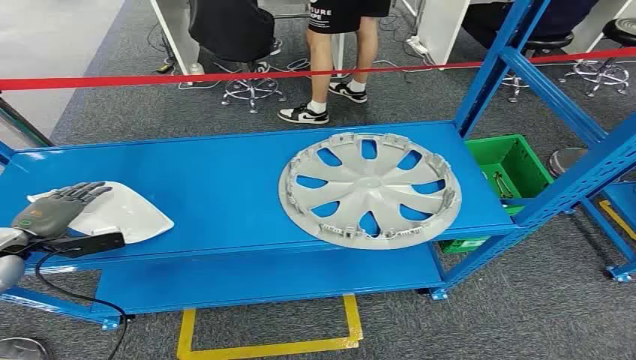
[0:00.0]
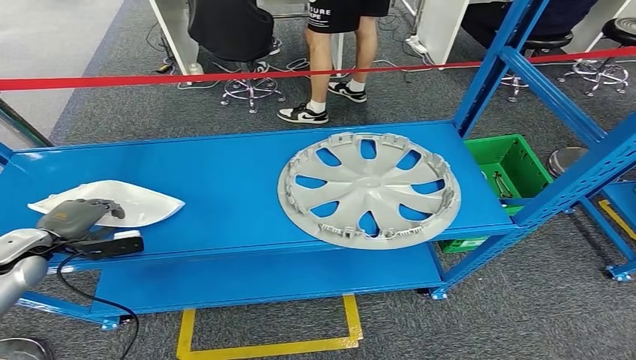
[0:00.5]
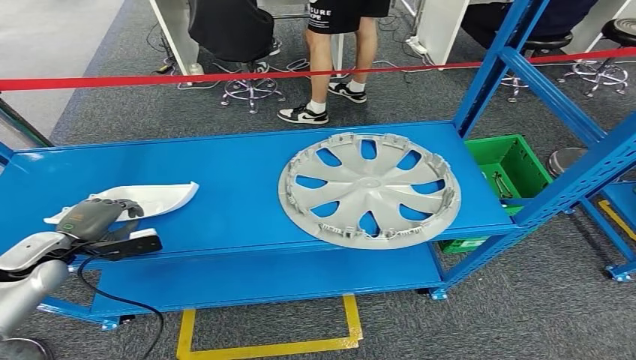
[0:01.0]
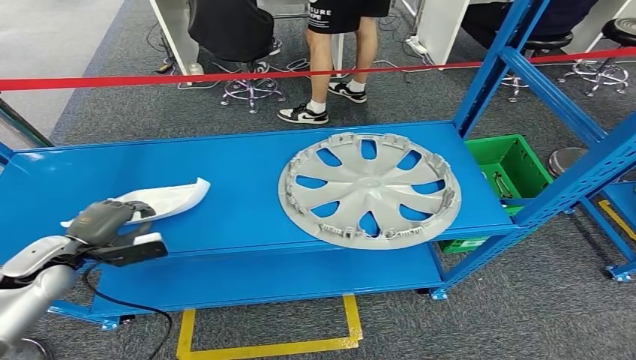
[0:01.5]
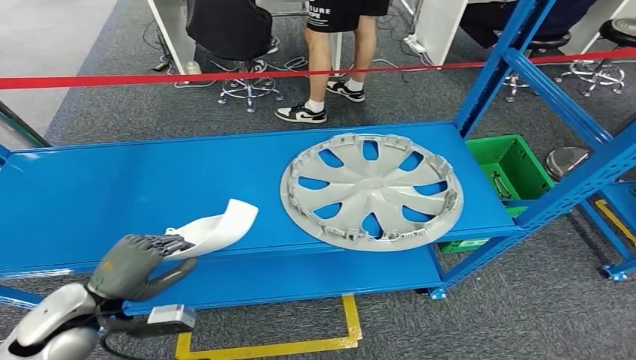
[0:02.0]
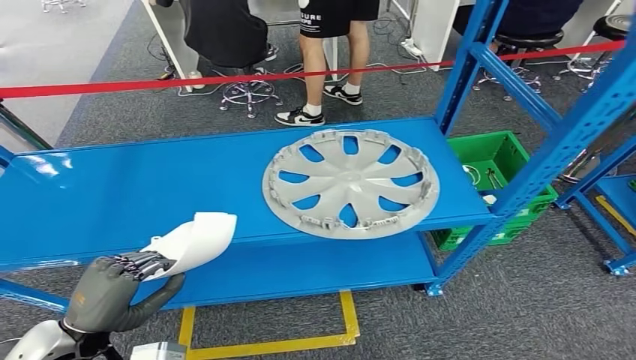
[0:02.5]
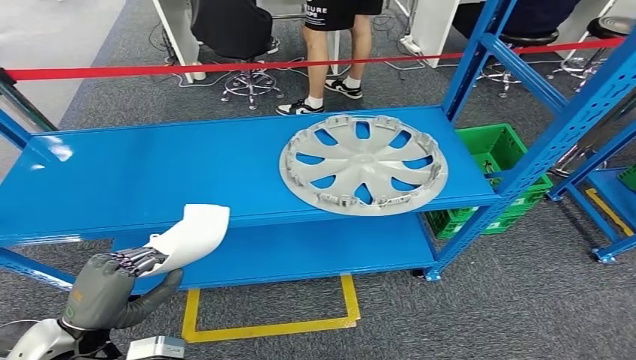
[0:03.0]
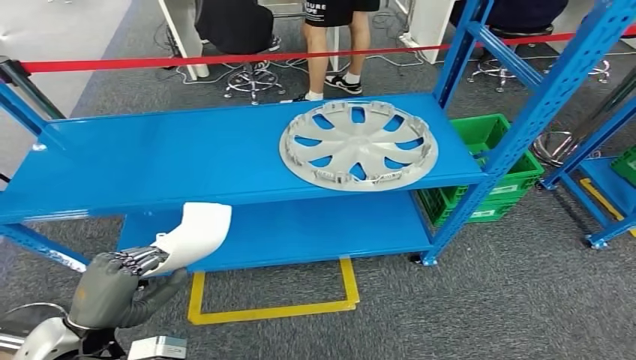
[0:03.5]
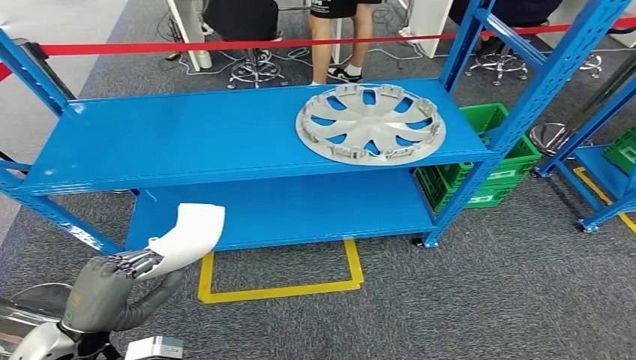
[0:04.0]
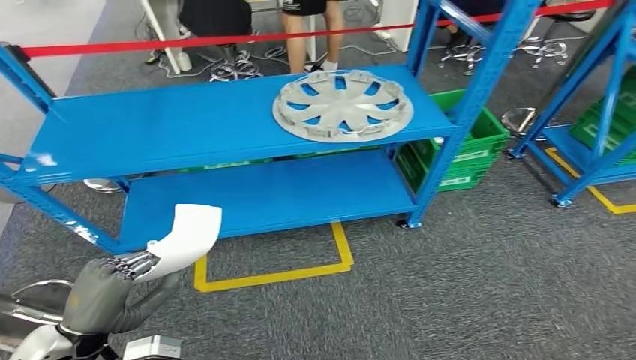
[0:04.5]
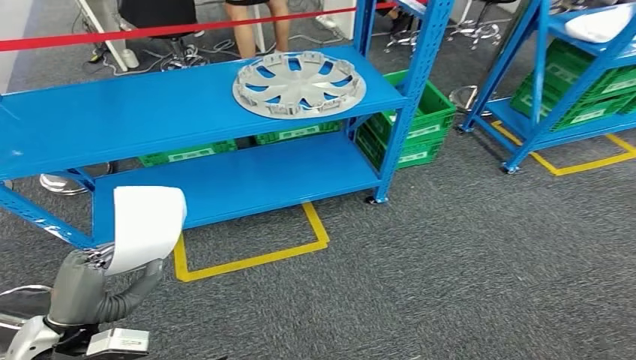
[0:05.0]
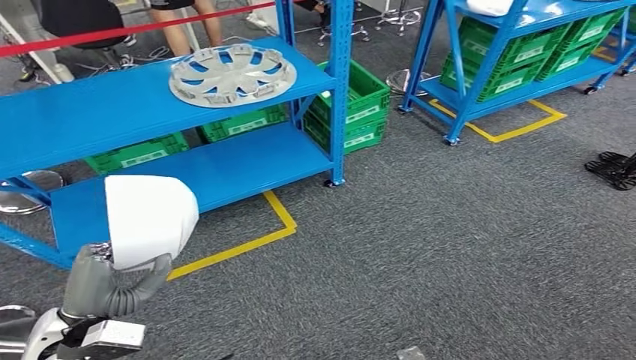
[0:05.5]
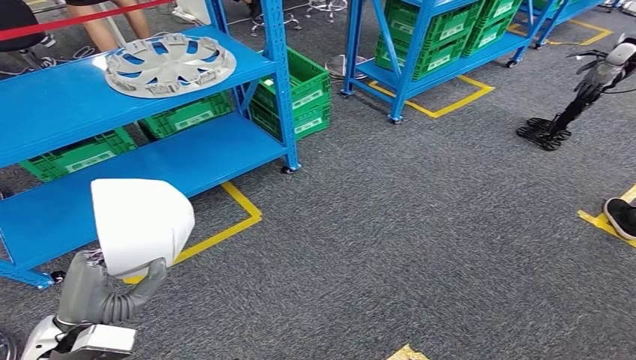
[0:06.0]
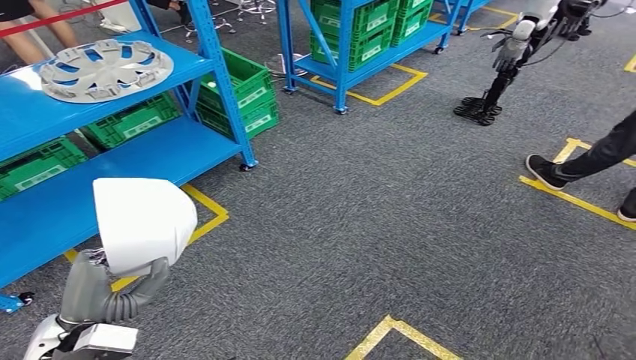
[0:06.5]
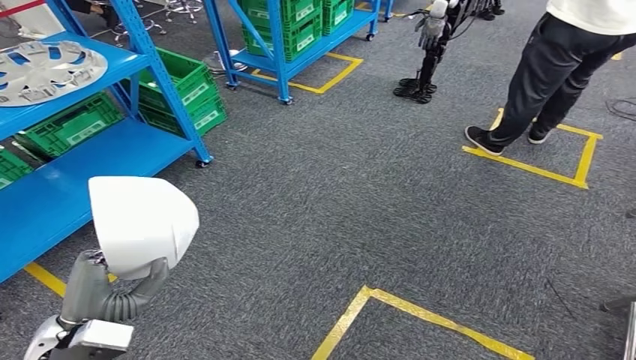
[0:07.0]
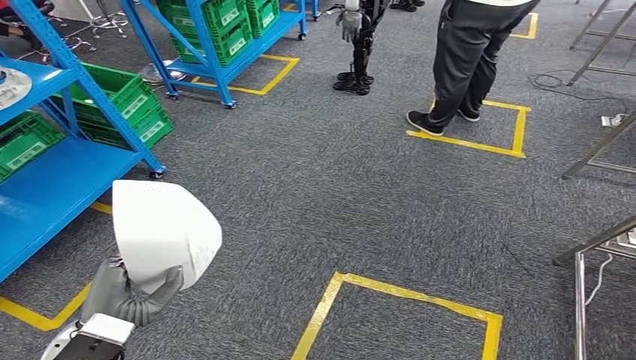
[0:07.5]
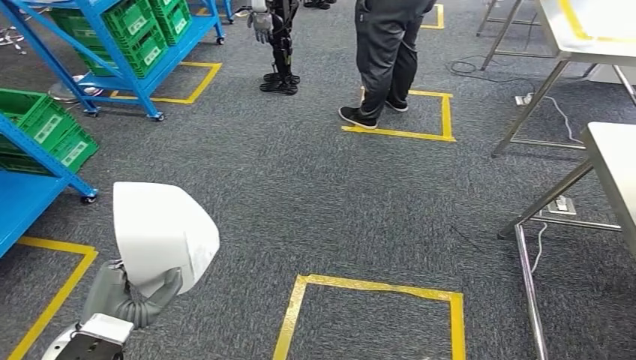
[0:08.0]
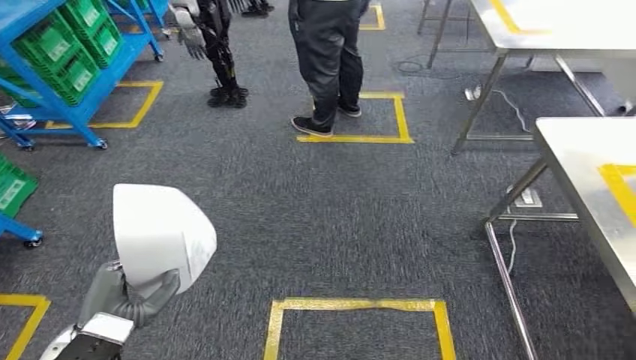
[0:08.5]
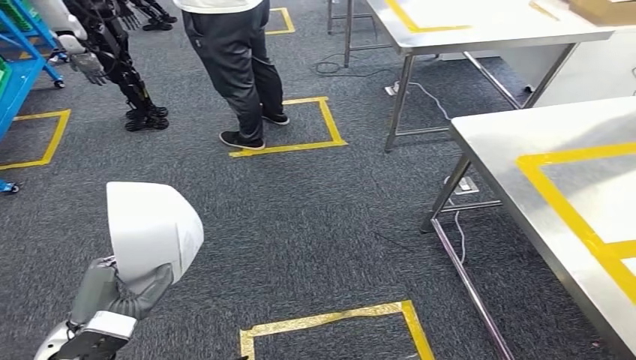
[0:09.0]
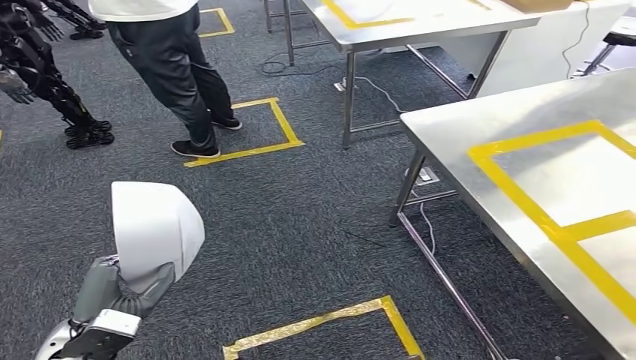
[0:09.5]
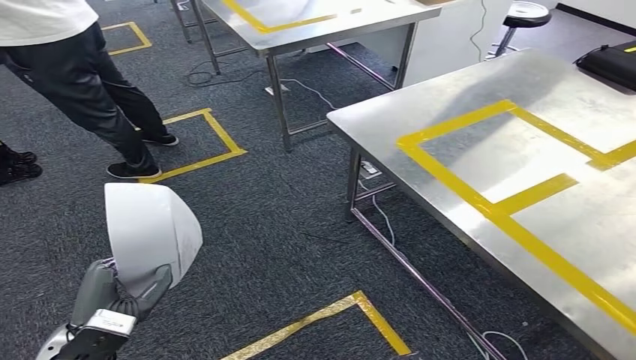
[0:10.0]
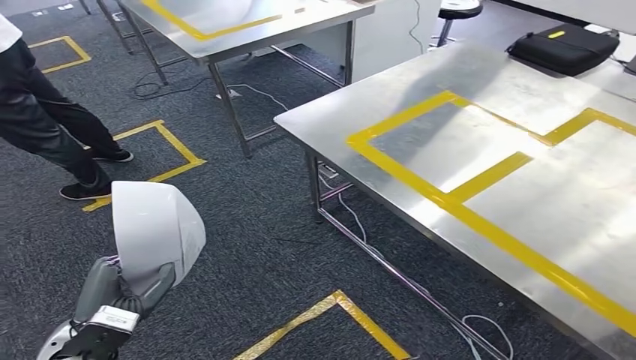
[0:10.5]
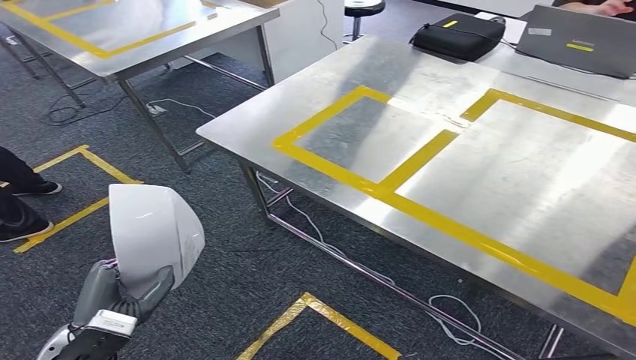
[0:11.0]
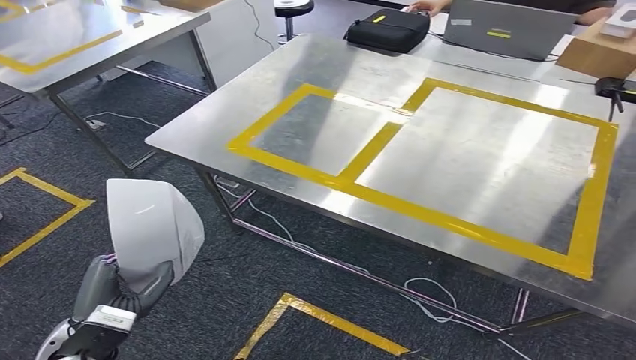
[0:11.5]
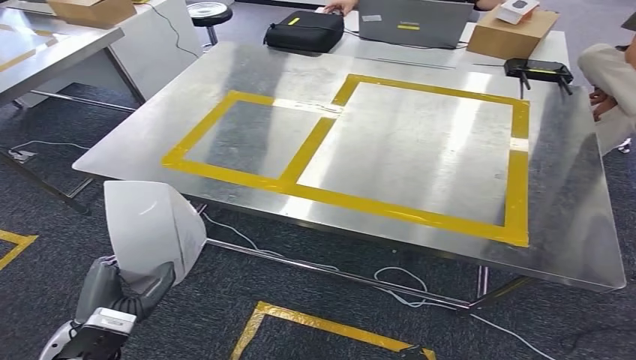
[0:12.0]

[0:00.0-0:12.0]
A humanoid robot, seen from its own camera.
Step, 0:00.0 to 0:03.5: Pick up the small component from the shelf.

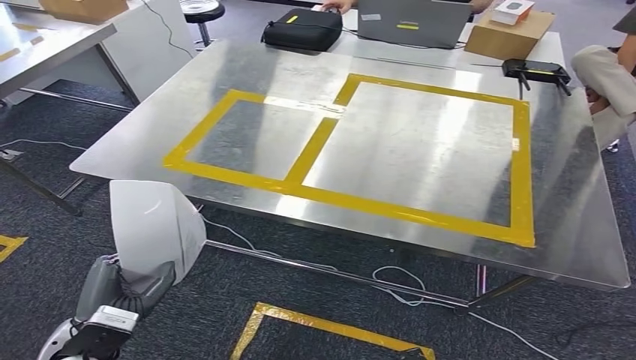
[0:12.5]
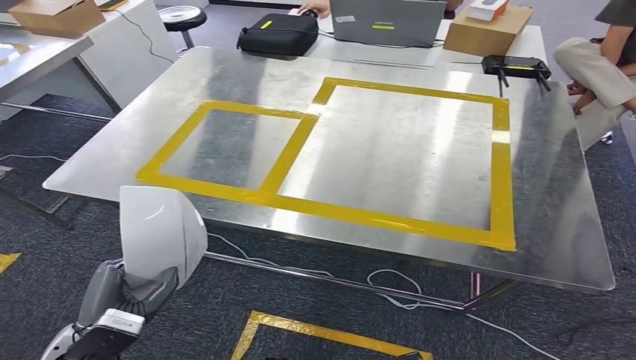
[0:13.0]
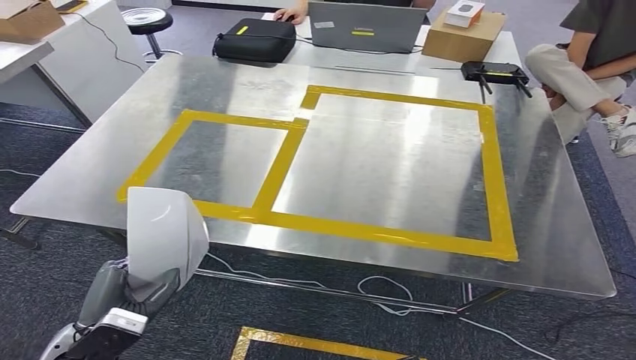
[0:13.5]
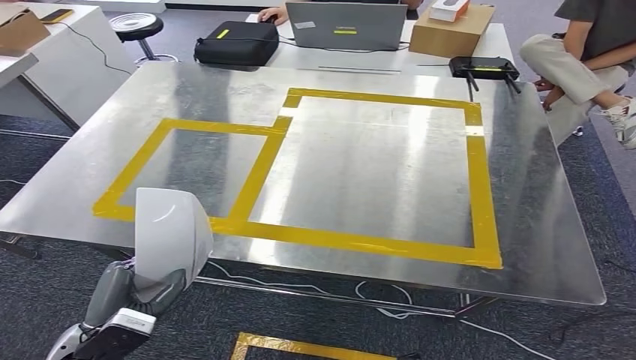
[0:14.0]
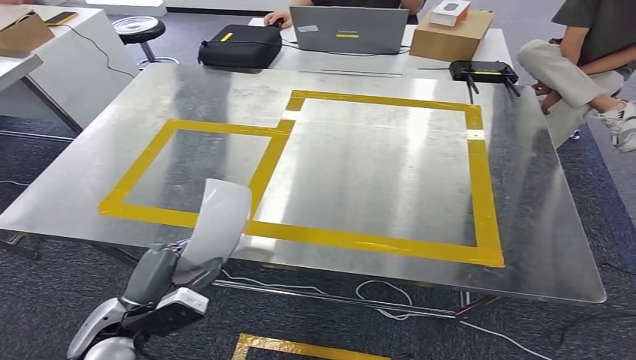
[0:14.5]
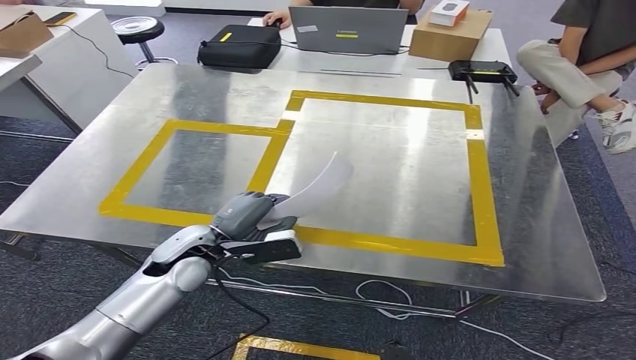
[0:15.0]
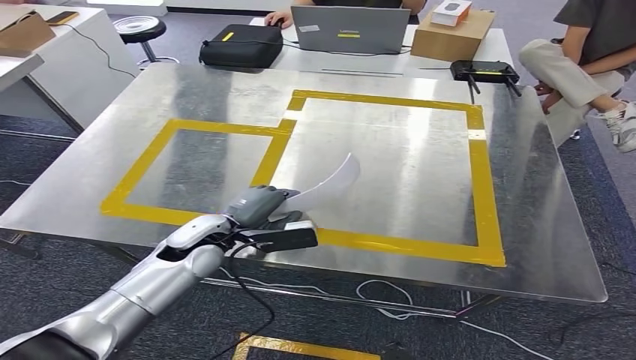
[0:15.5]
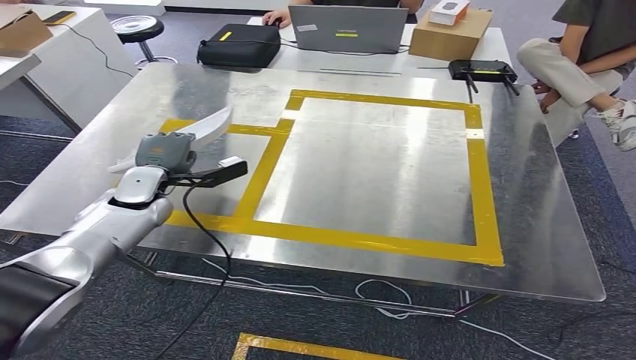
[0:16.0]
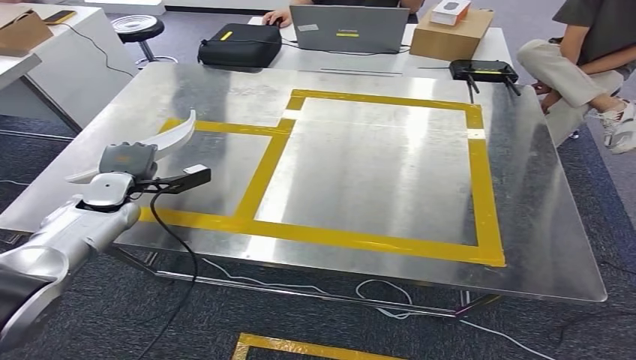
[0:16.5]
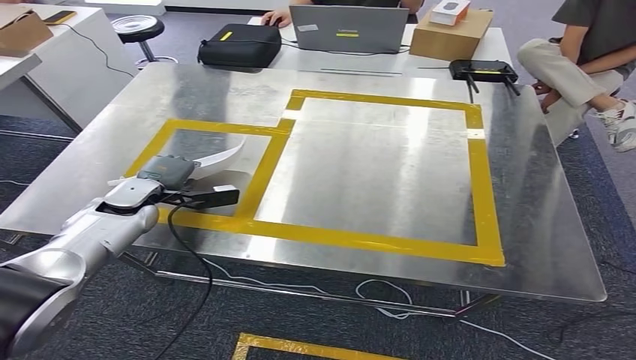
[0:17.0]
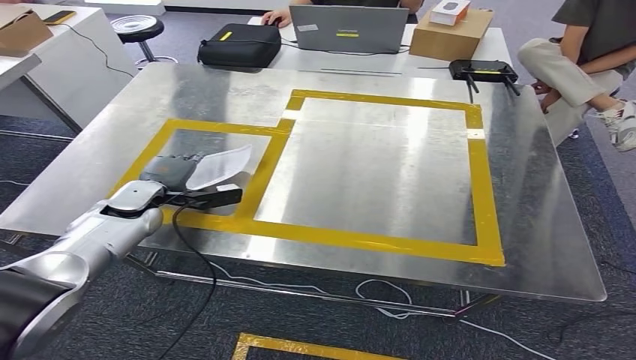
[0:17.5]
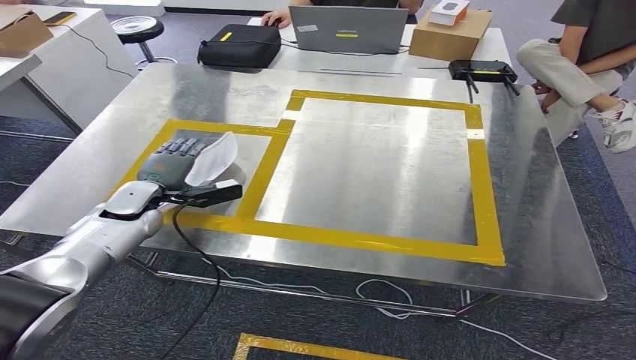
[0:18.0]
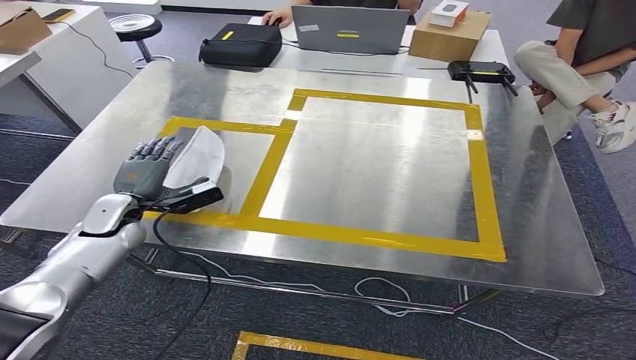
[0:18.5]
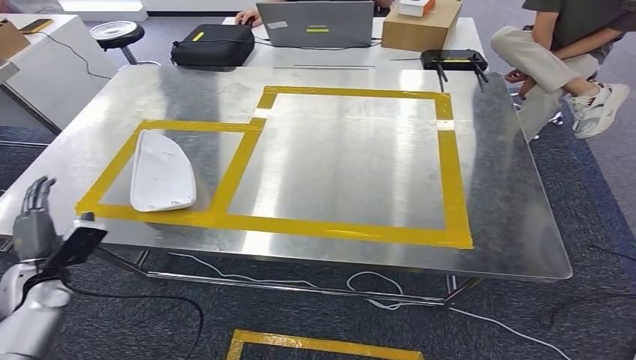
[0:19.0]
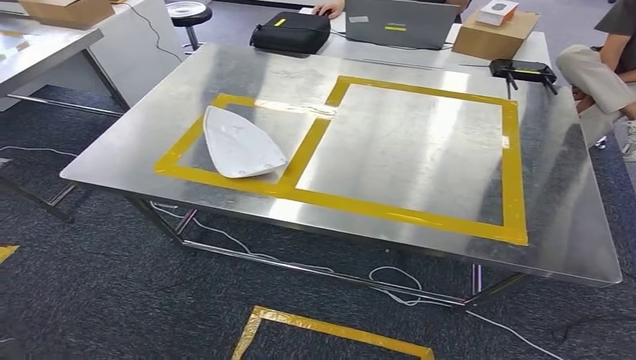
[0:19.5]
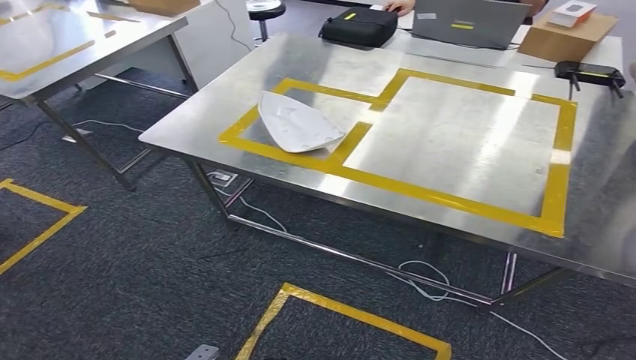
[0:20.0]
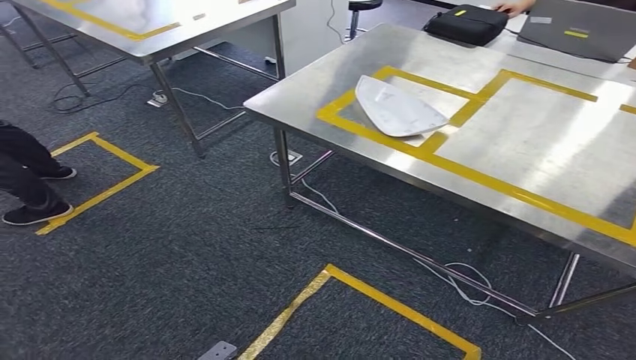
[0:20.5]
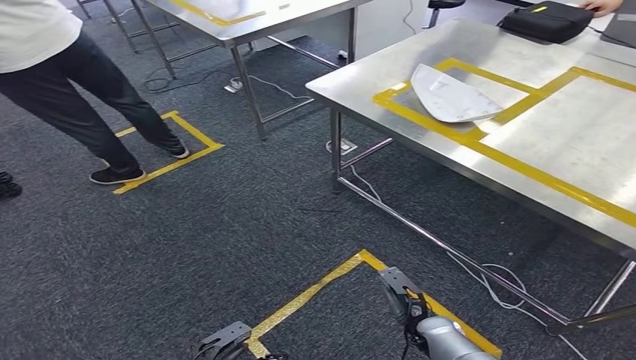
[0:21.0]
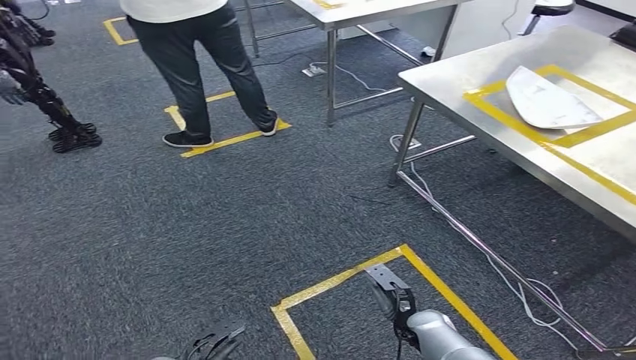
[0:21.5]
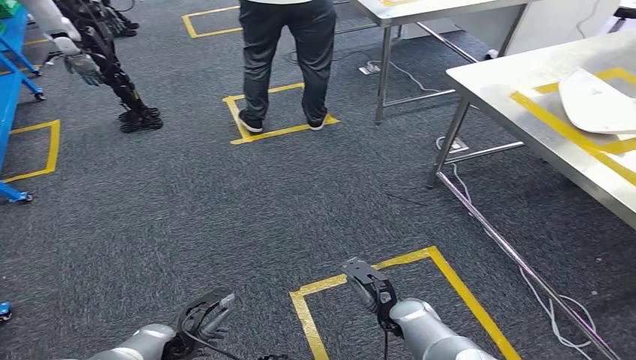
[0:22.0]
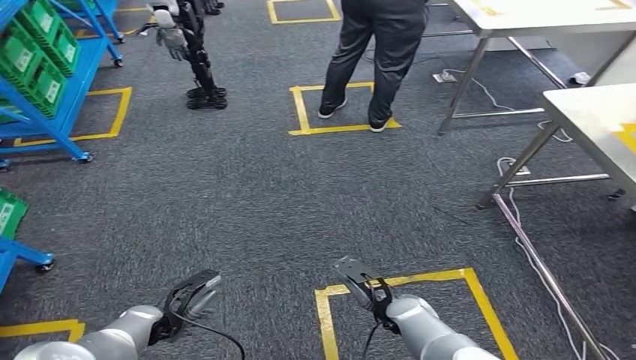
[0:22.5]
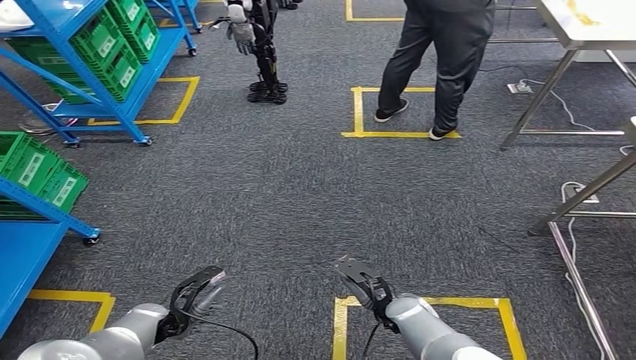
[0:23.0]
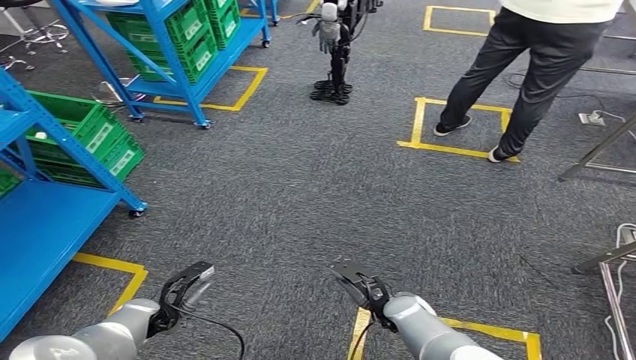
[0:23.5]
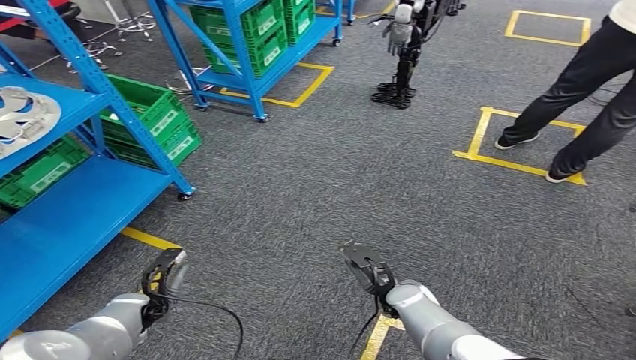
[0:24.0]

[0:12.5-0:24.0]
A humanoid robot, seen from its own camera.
Step, 0:13.5 to 0:20.0: Insert the small component into the corresponding slot on the workbench.
0:14.5 to 0:16.5: The left hand shifts approximately 25 cm forward.
